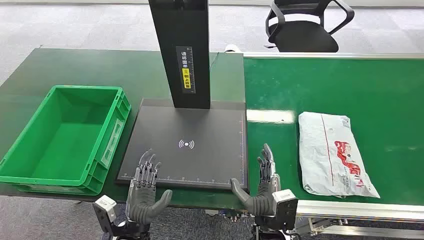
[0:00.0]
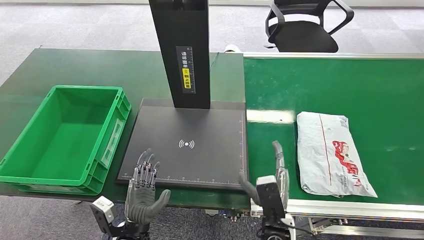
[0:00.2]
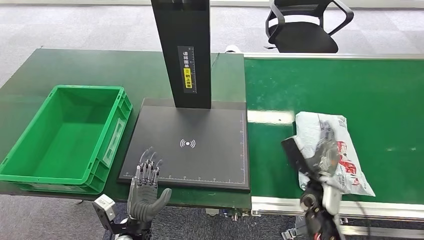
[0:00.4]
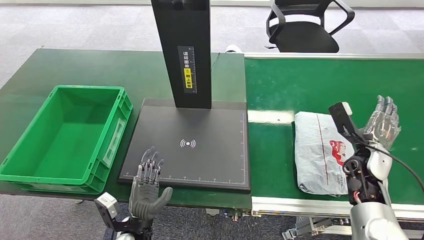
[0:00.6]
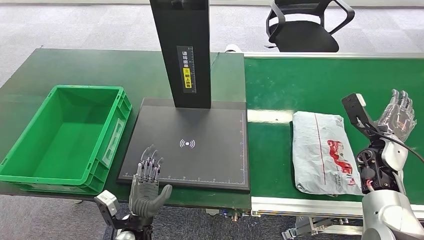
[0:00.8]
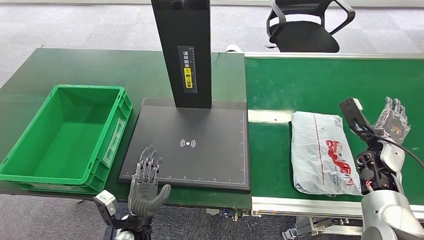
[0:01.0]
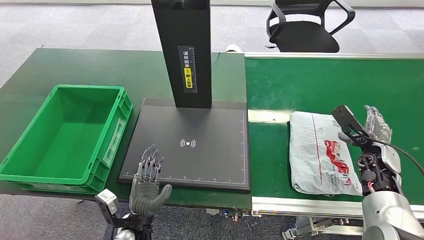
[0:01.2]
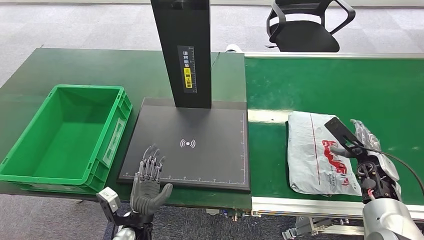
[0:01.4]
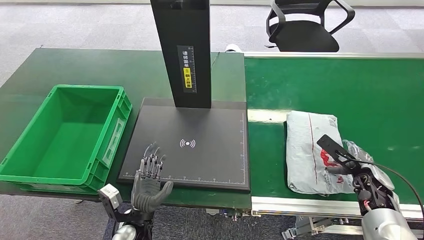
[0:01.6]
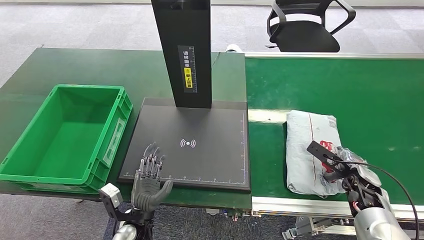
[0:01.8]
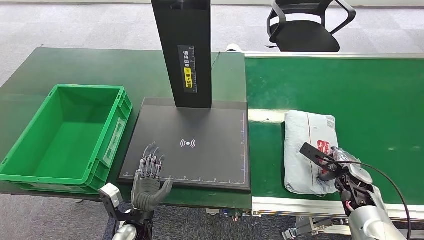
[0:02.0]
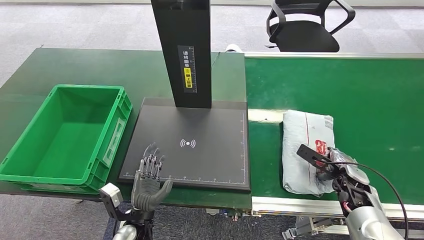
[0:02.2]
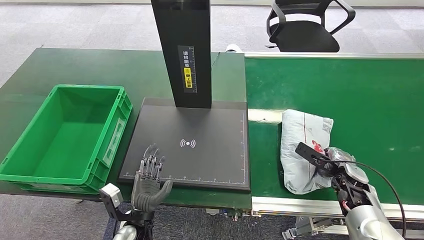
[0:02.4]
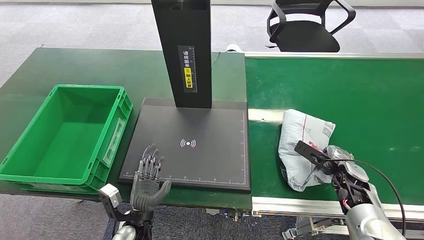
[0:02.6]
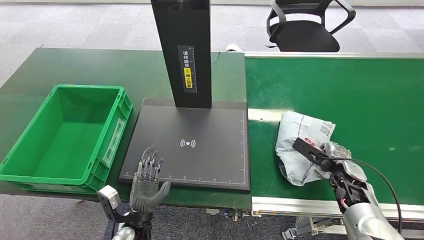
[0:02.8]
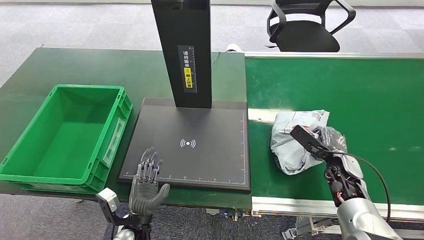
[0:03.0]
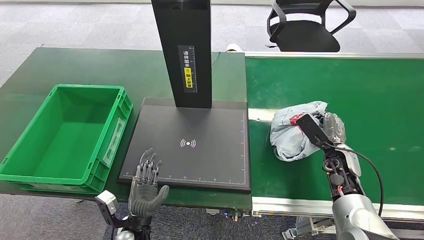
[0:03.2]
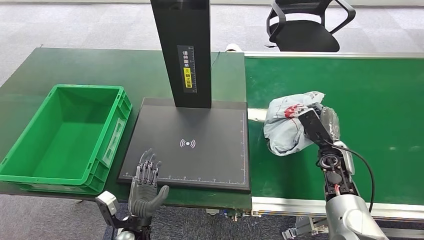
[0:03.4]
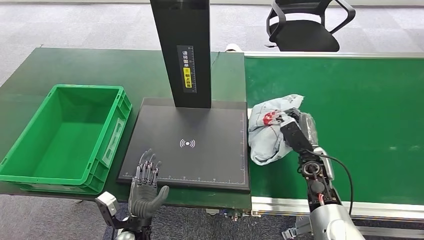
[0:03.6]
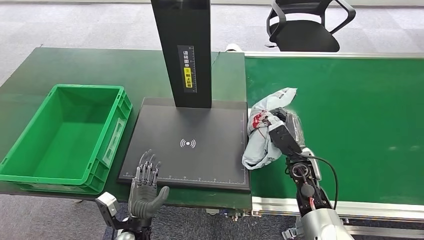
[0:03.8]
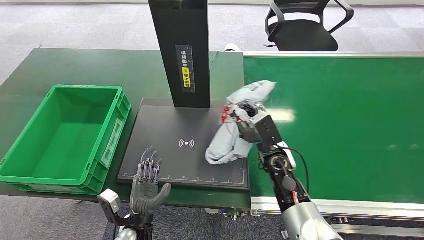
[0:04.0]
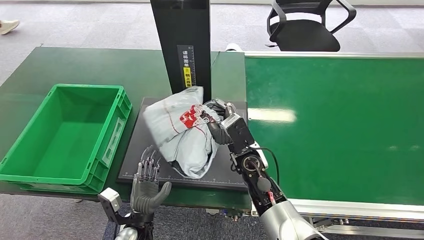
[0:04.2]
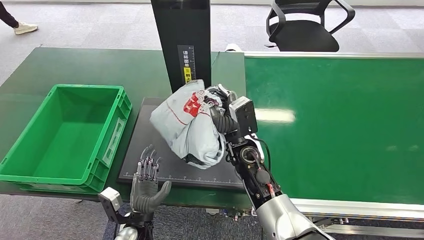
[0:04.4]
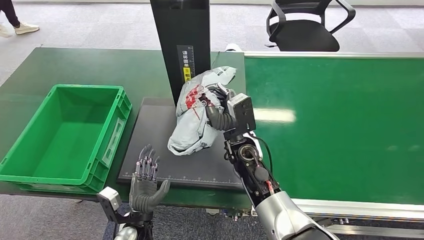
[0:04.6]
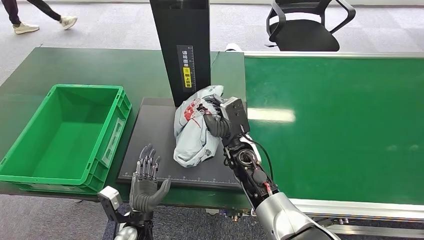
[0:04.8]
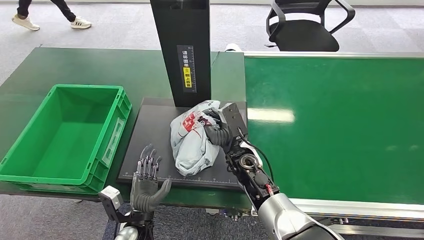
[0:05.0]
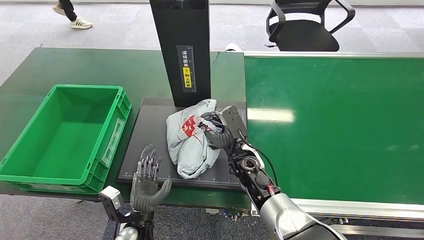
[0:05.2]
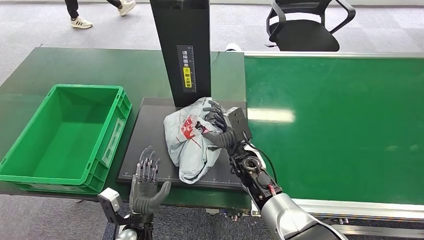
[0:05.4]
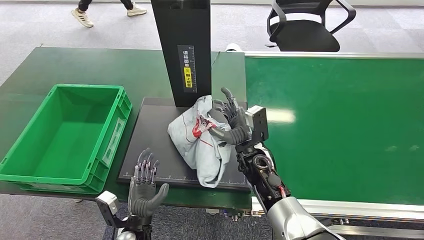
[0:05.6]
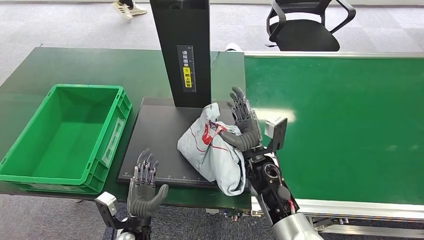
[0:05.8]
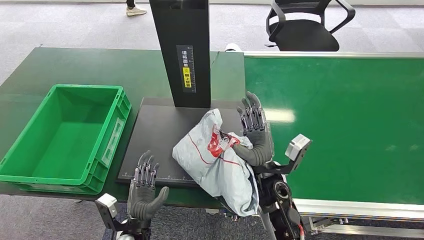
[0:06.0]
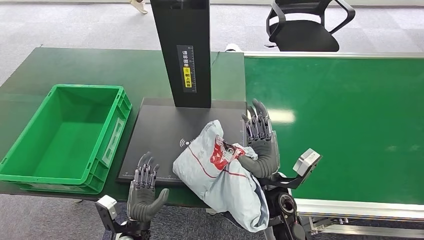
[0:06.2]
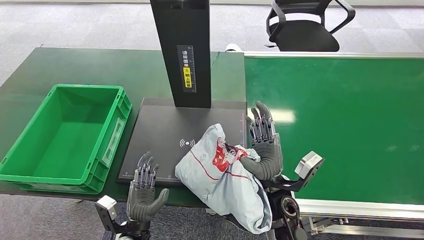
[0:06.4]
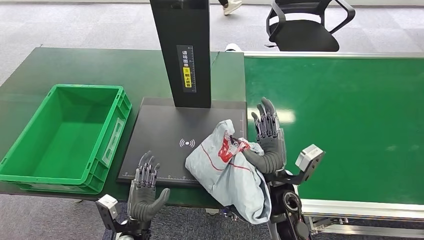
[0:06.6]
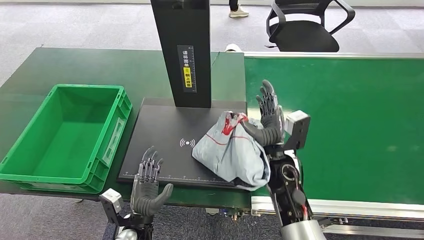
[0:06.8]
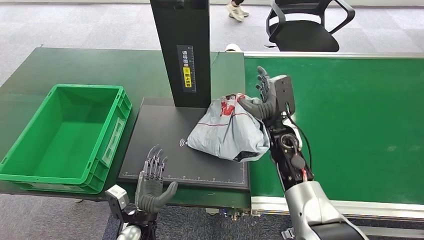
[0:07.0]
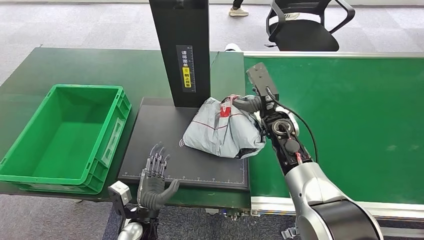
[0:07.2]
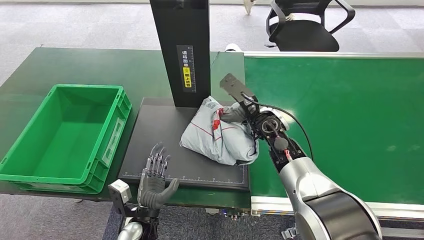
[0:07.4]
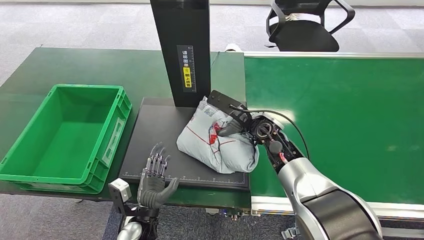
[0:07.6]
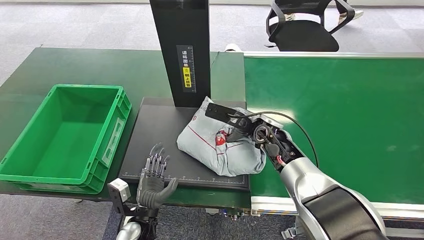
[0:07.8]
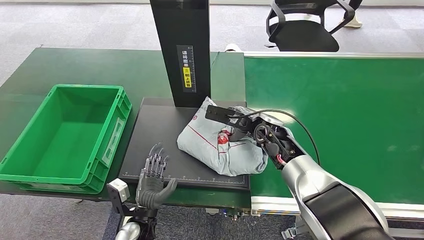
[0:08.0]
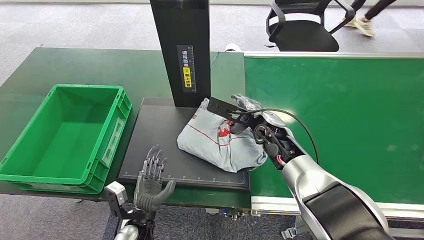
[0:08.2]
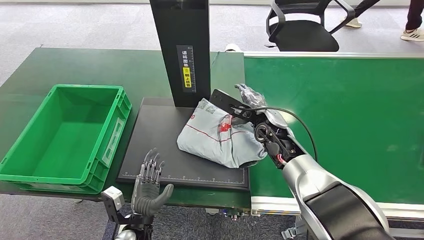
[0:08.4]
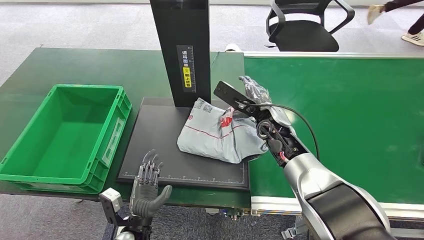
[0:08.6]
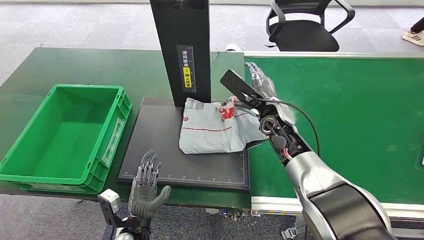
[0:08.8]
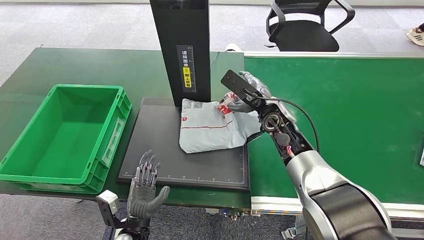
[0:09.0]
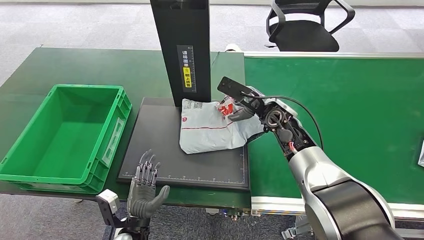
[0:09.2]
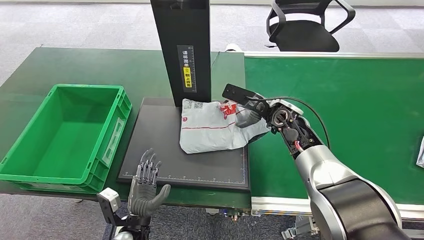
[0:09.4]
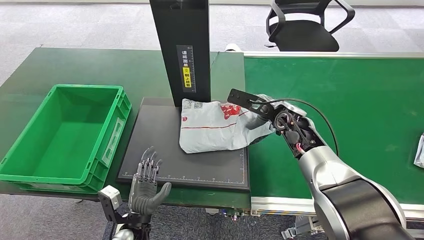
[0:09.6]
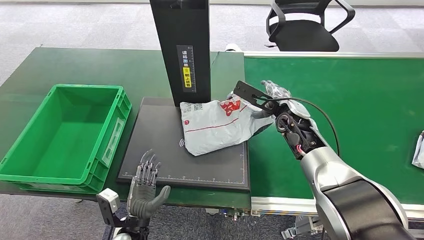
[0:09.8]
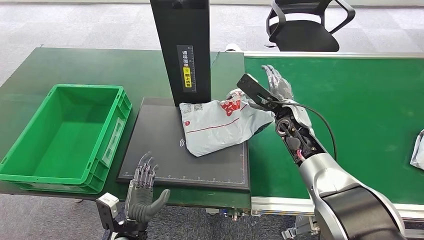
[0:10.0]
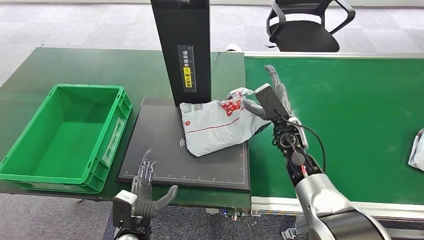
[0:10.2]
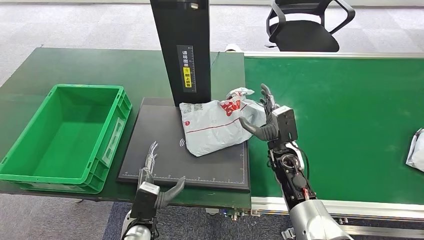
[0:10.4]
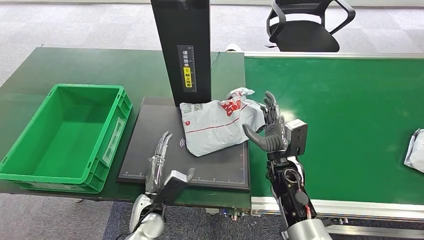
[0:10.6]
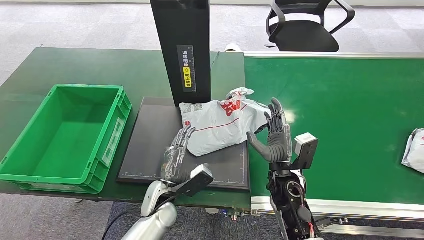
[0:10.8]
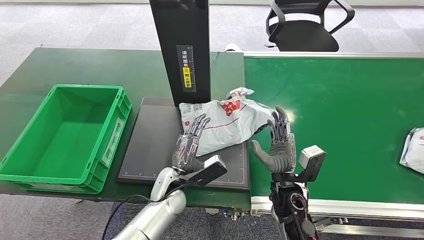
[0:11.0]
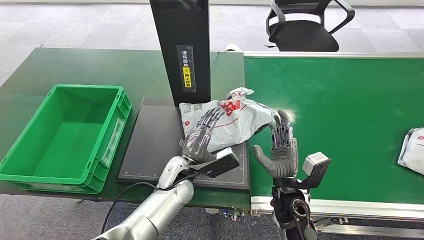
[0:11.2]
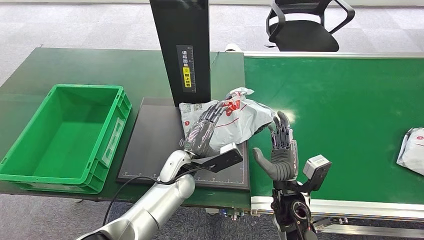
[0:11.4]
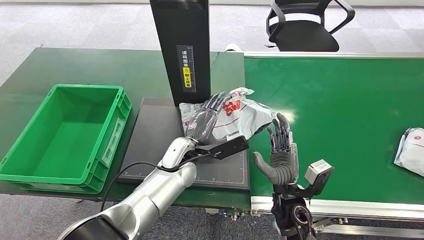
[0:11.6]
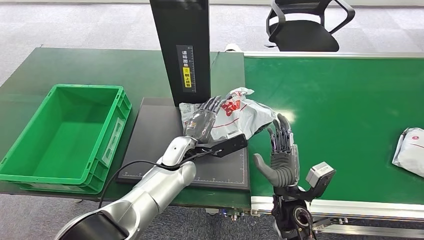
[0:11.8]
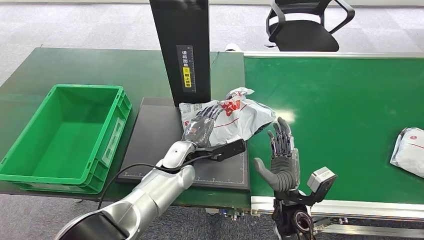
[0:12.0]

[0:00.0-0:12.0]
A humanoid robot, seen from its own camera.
Step, 0:00.0 to 0:03.8: Pick up the package from the conveyor belt.
Step, 0:04.0 to 0:11.4: Place the package onto the inbound machine.
0:01.6 to 0:03.0: The right hand moves to the left, about 5 cm.
0:04.4 to 0:06.0: The right hand heads backward and to the right, covering approximately 10 cm.
0:06.0 to 0:07.6: The right hand is displaced forward and upward by roughly 15 cm.
0:09.0 to 0:10.4: The right hand moves downward and backward, some 10 cm.
0:10.4 to 0:12.0: The left hand goes approximately 20 cm forward, upward and to the right, while the right hand is displaced backward by roughly 15 cm.

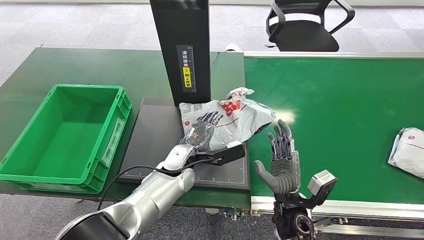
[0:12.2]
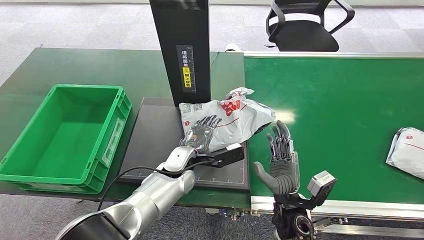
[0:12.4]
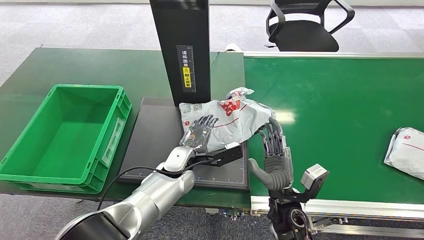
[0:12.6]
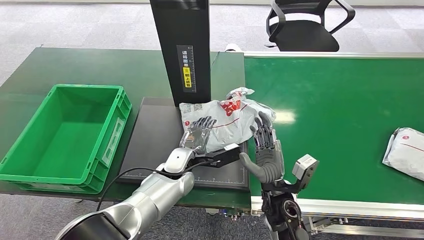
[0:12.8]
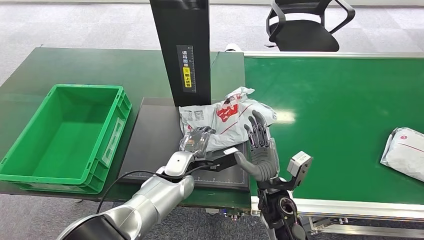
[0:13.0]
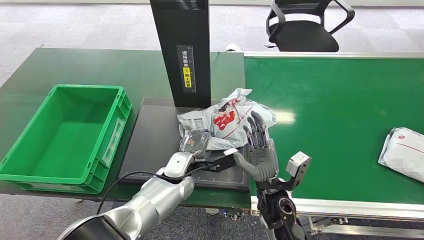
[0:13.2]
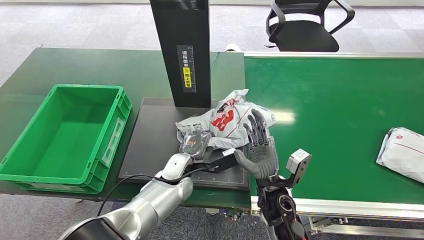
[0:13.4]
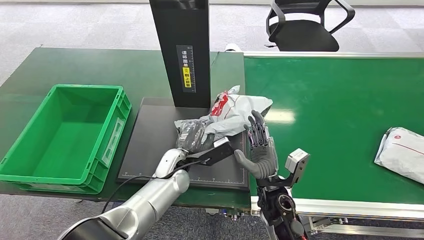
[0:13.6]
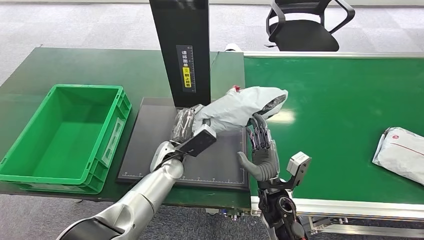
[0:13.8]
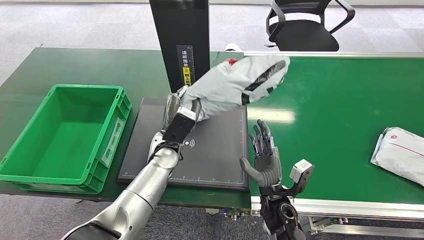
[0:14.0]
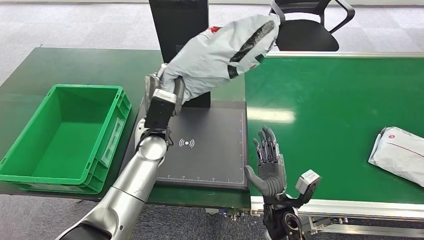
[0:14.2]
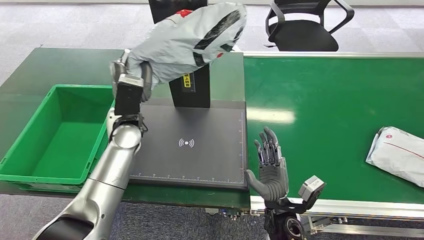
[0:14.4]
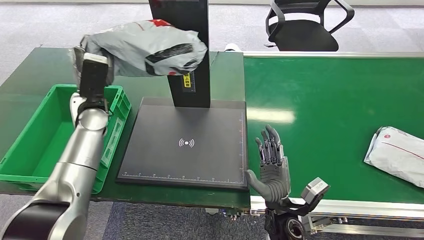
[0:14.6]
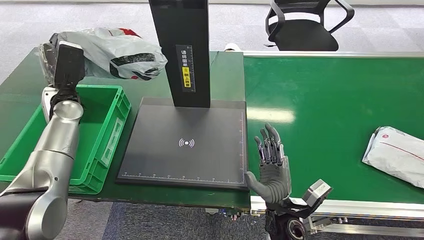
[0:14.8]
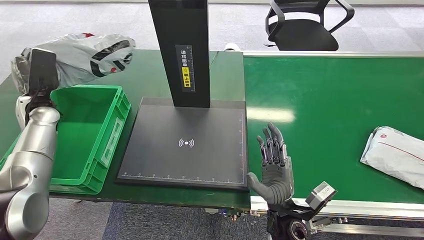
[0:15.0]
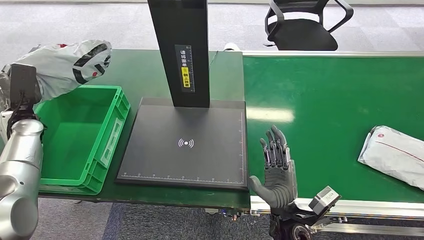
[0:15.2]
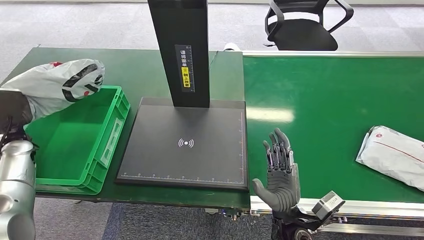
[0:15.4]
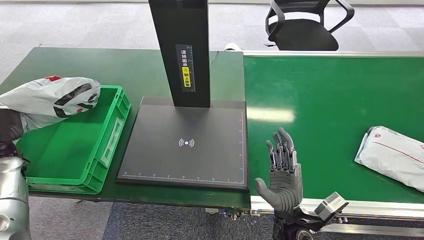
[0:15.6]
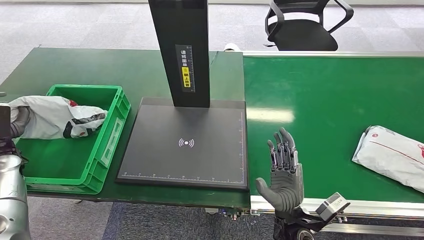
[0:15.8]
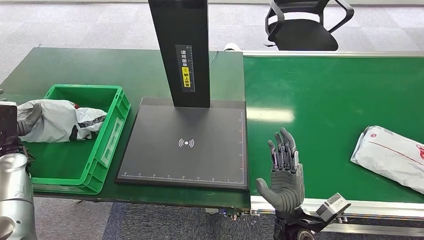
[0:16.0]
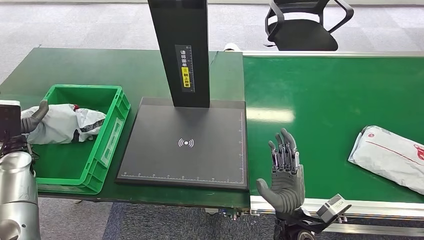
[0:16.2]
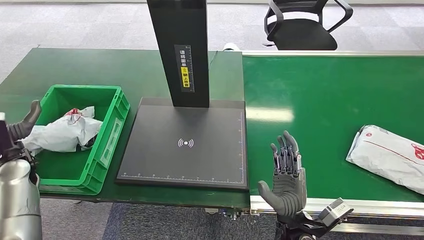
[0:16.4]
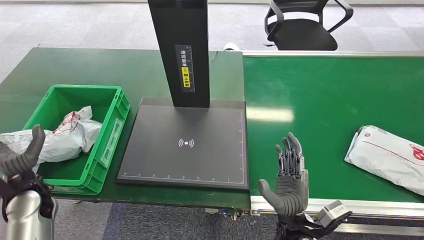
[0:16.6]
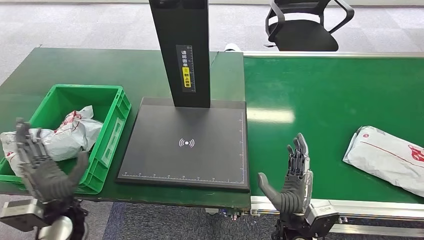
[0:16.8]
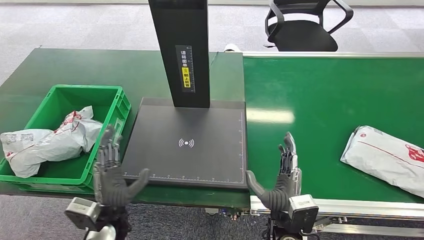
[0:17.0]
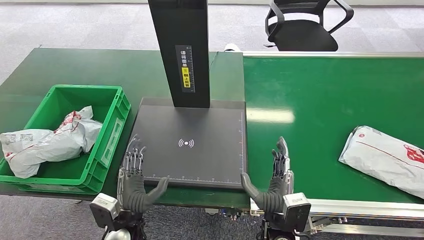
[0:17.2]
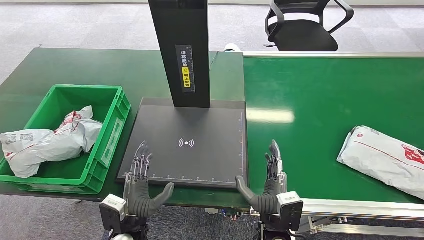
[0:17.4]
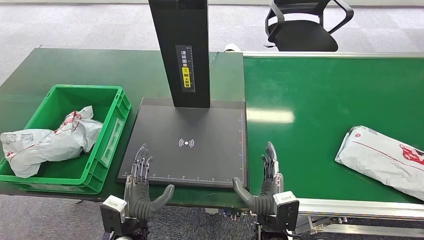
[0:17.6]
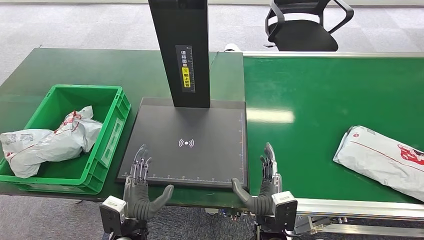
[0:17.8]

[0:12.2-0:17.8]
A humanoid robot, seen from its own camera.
Step, 0:12.2 to 0:14.4: Pick up the package from the inbound machine.
Step, 0:14.6 to 0:17.8: Place the package into the parcel locker.
0:12.2 to 0:13.6: The hands move only a little.
